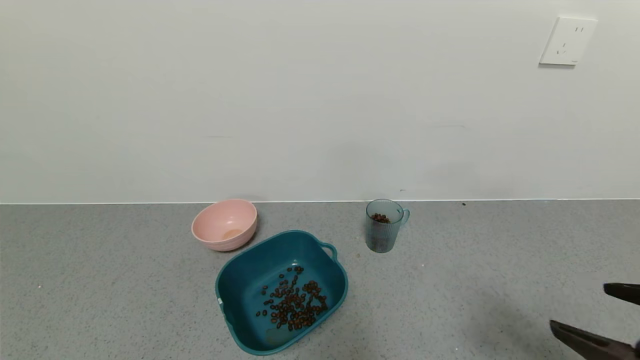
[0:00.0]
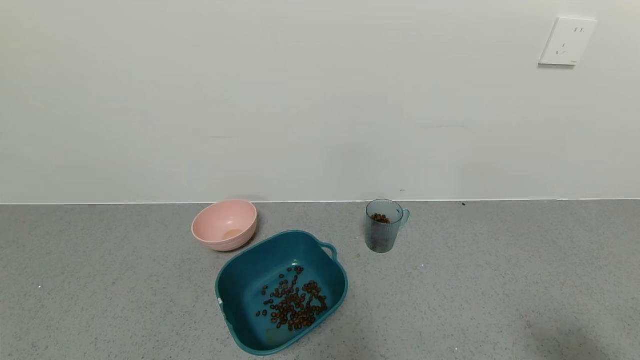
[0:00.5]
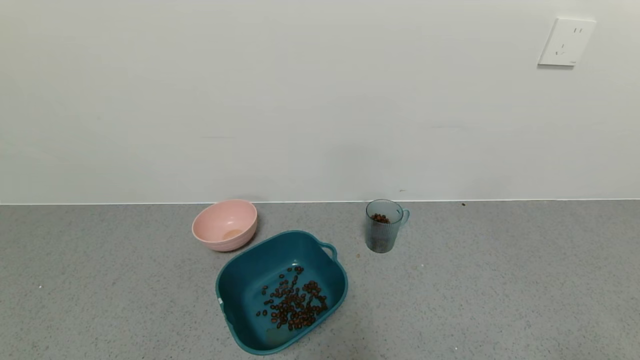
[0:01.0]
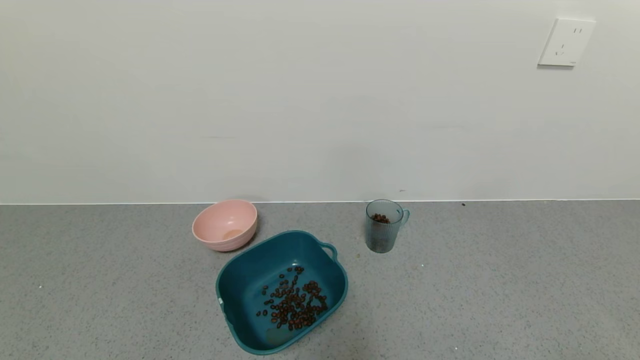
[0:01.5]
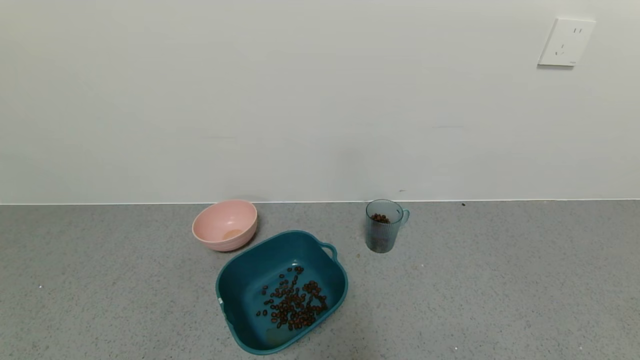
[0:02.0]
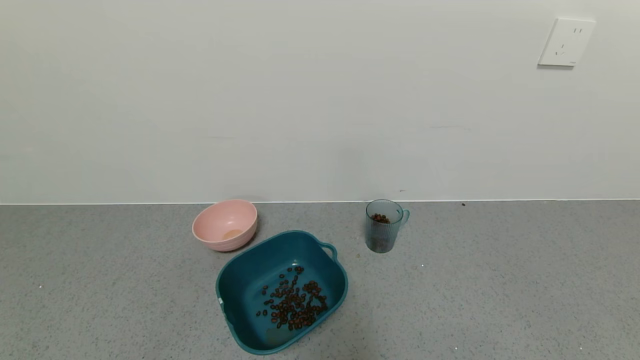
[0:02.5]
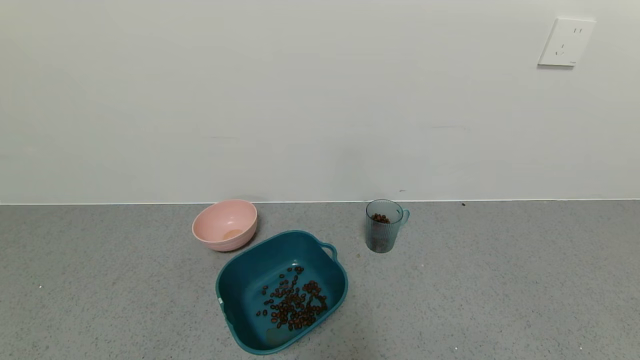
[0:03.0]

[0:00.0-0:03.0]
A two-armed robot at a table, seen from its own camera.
Task of the whole recording: use a gripper to pick up the cup and pour the solid into a bowl or tray.
0:00.0 to 0:01.5: The right gripper moves backward and to the right, roughly 15 cm.
